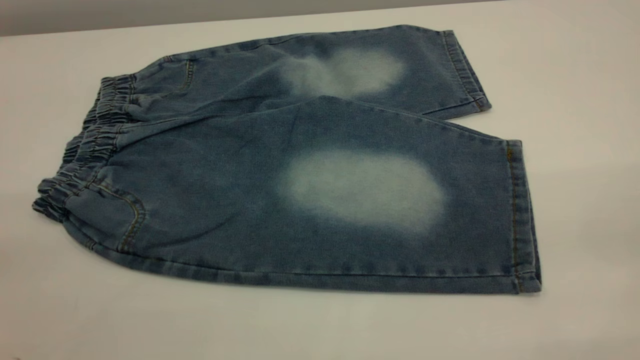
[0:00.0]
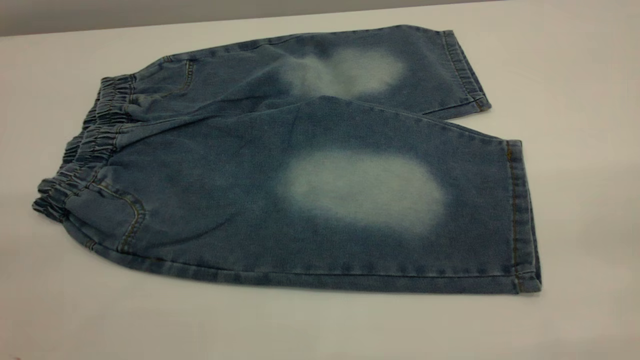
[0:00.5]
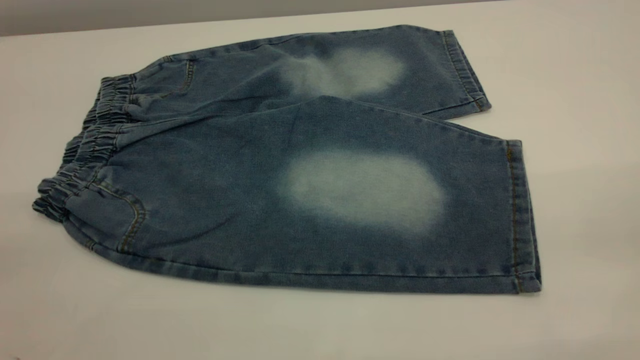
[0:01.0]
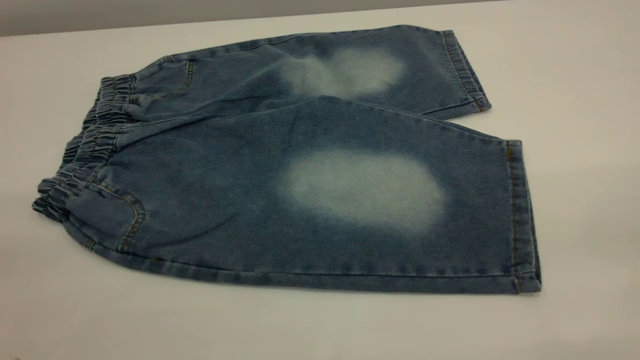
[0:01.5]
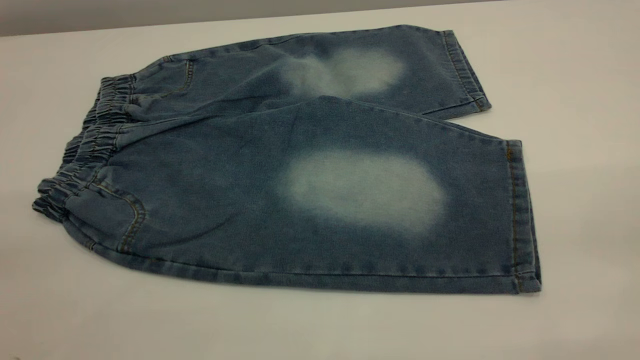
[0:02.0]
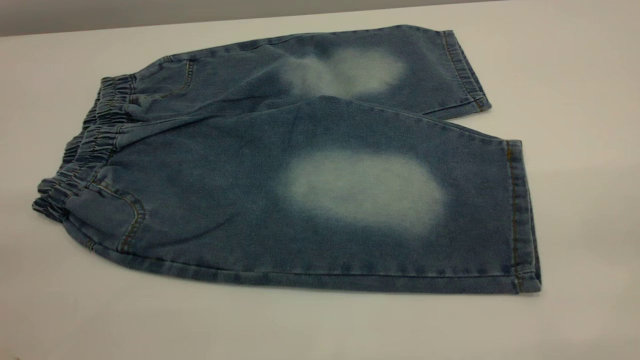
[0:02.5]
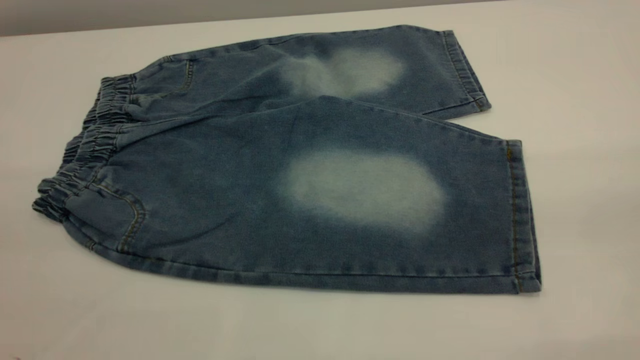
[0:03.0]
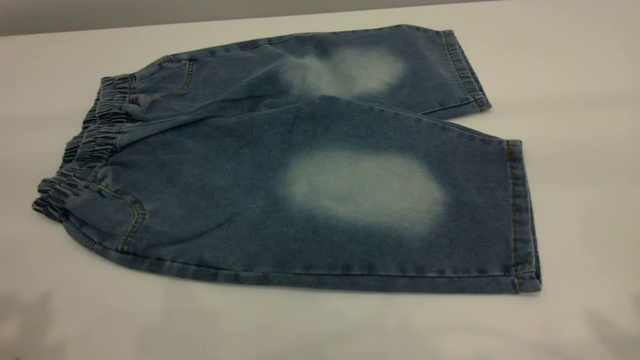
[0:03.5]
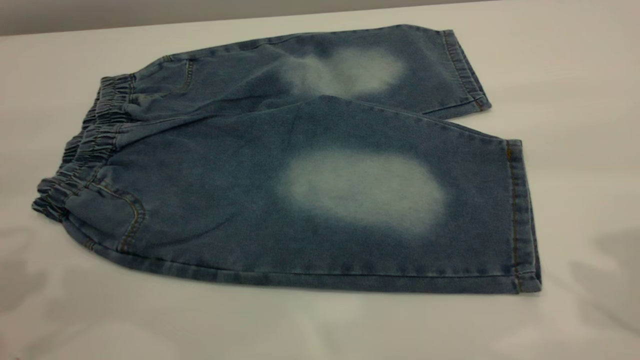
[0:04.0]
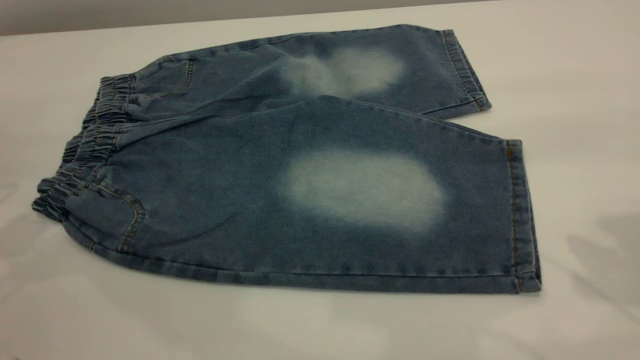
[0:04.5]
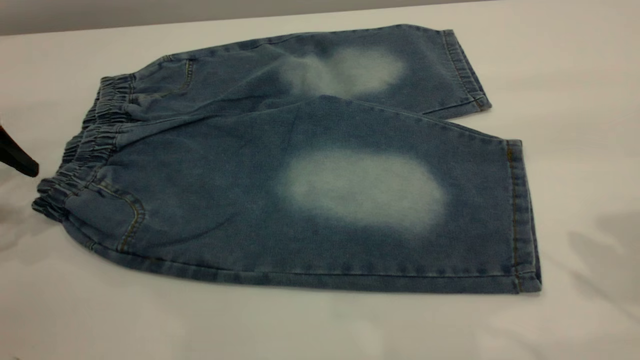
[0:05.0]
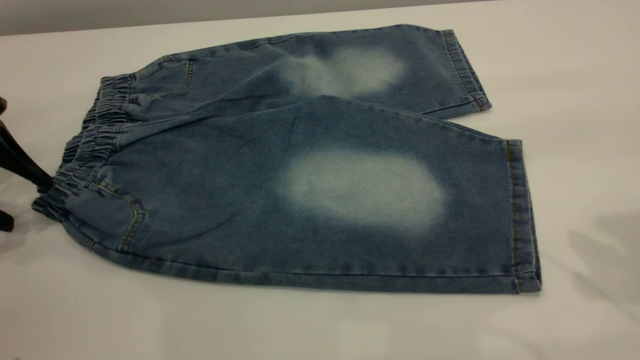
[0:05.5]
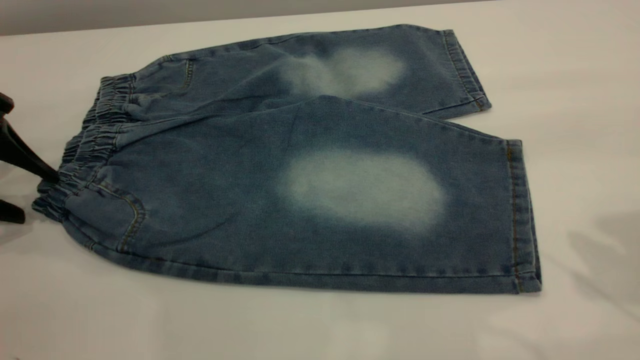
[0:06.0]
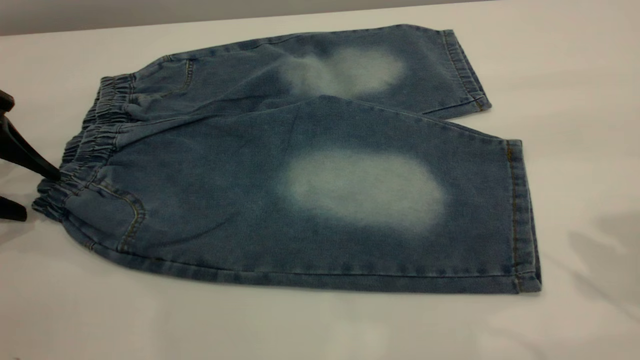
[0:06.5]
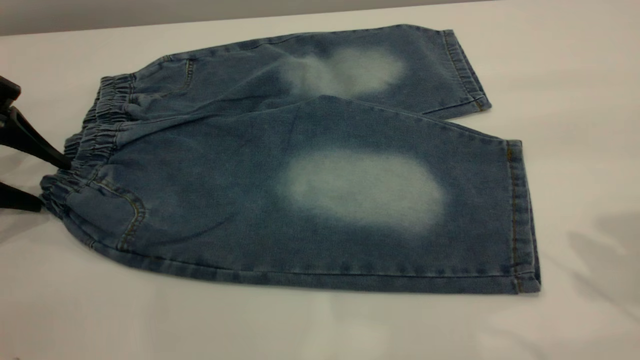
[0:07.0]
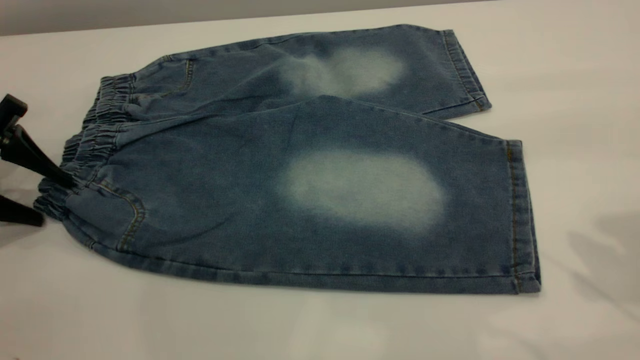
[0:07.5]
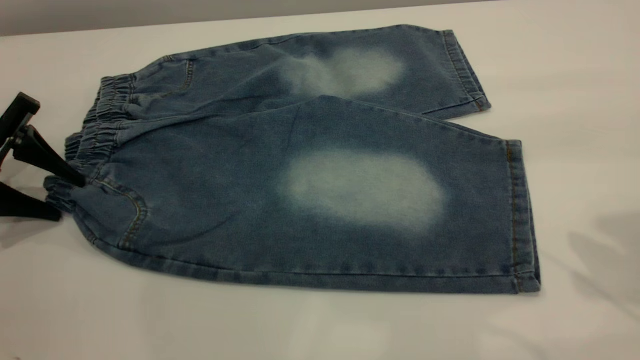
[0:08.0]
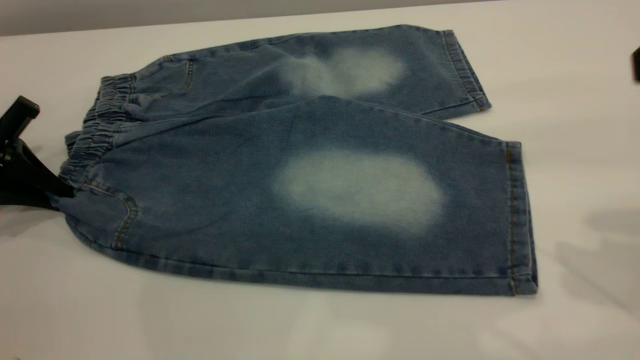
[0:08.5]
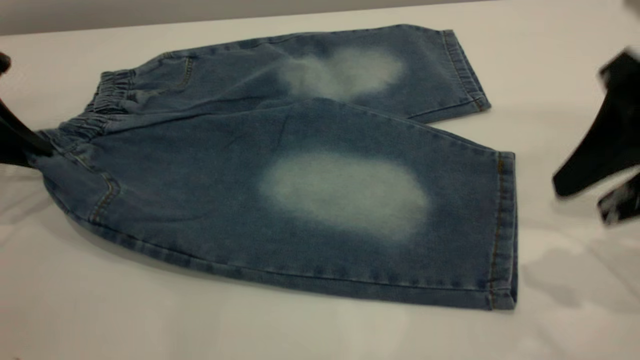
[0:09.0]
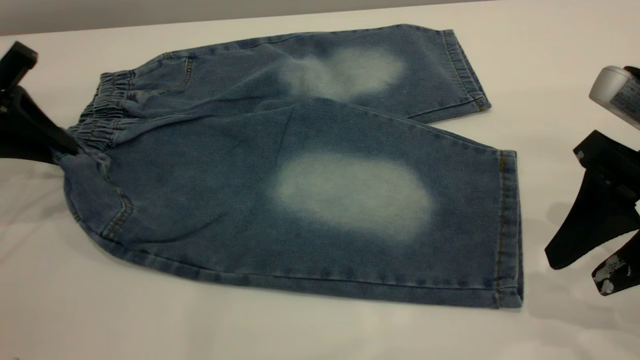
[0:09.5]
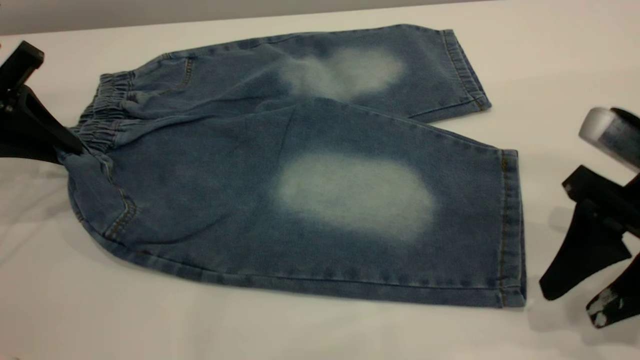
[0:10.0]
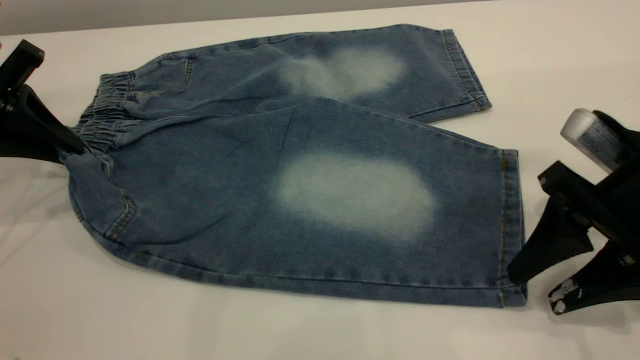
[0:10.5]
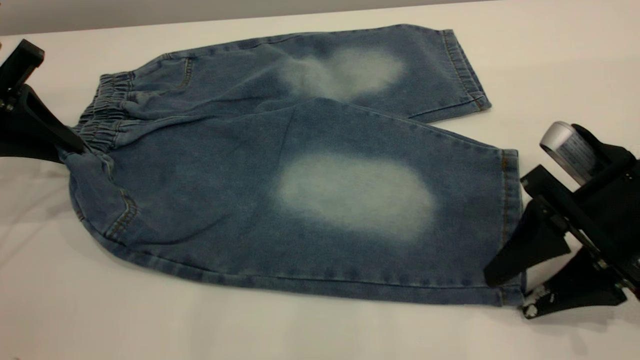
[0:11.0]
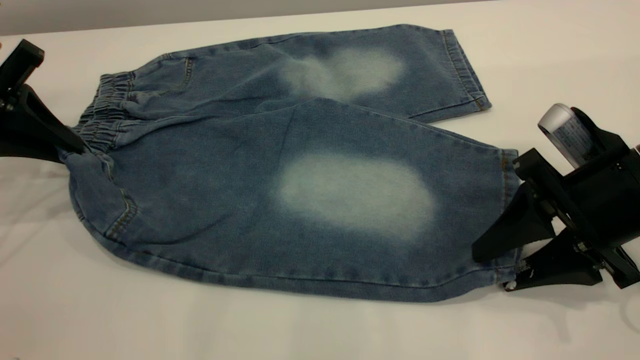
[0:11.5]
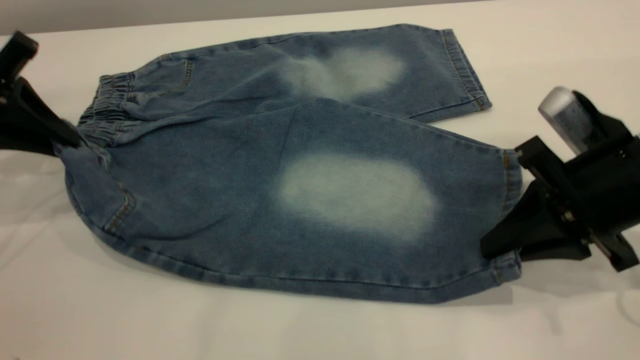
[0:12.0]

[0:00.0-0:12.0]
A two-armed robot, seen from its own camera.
0.0 to 2.0 s: The two grippers keep their place.
4.0 to 6.0 s: The left gripper travels downward and forward by roughly 20 cm.
6.0 to 8.0 s: The grippers move only a little.
8.0 to 10.0 s: The left gripper is displaced upward by approximately 5 cm, and closes up, while the right gripper travels downward by about 15 cm.
10.0 to 12.0 s: The right gripper closes.

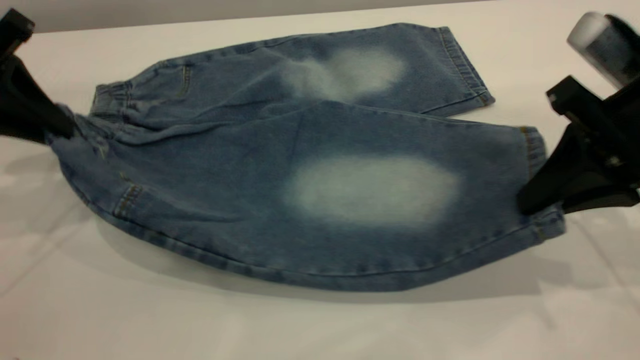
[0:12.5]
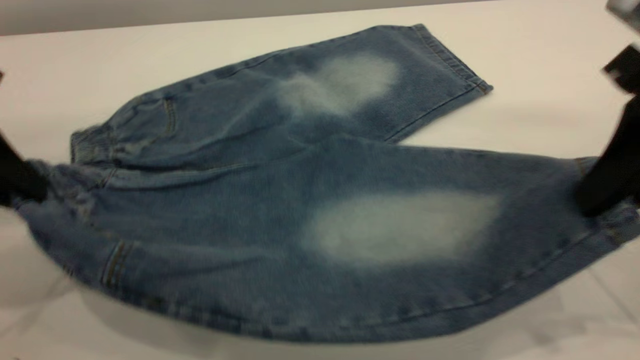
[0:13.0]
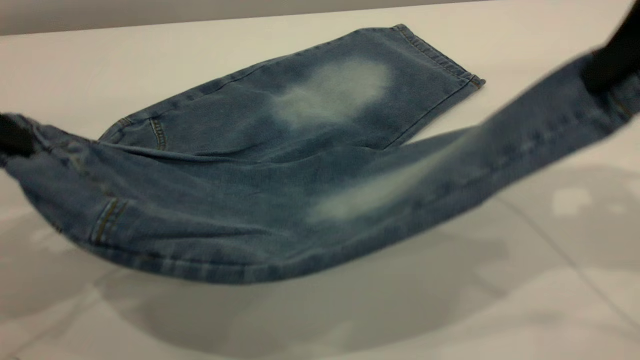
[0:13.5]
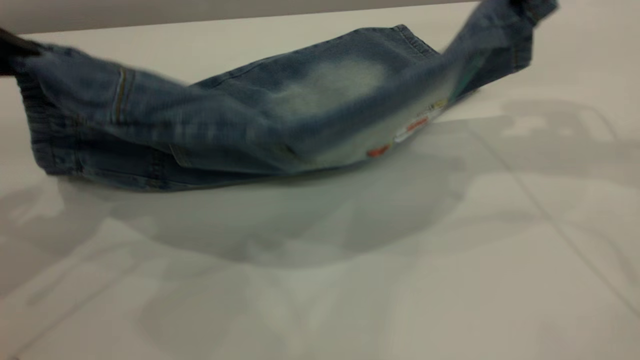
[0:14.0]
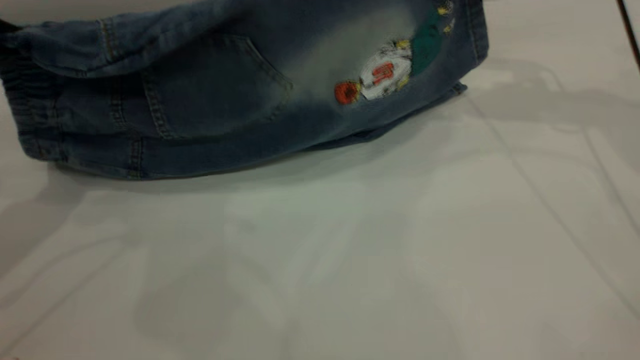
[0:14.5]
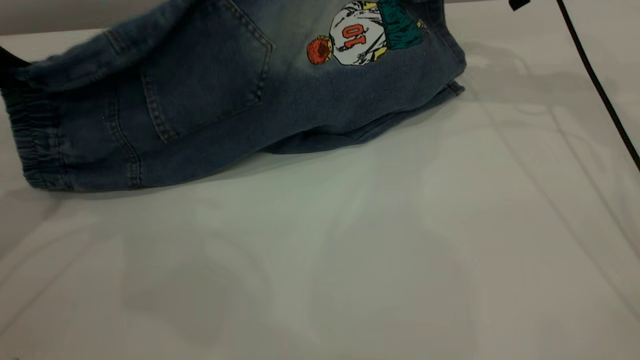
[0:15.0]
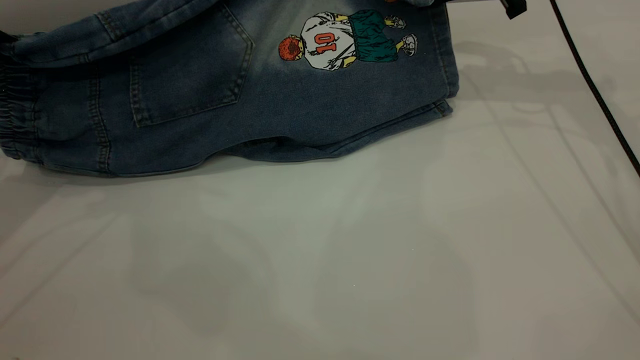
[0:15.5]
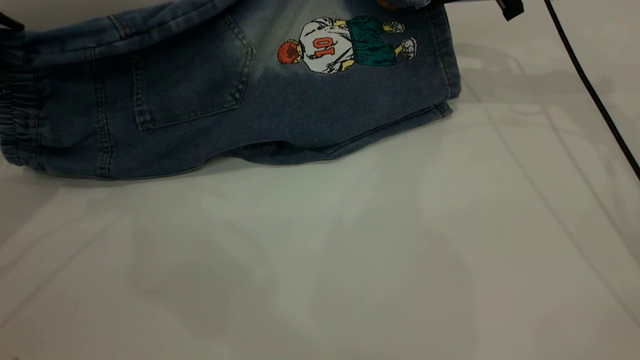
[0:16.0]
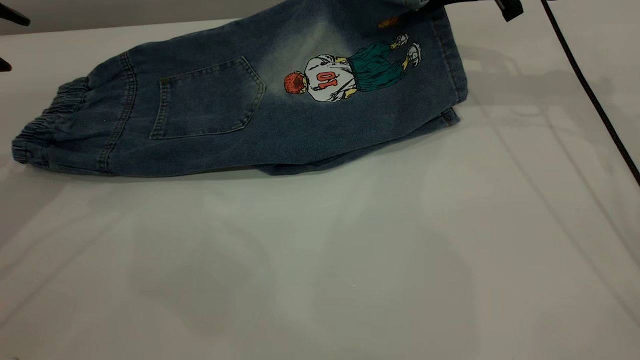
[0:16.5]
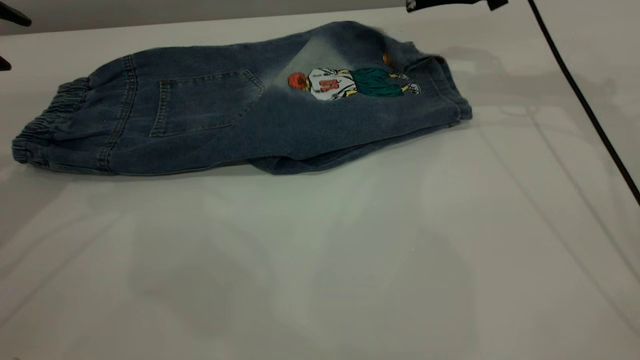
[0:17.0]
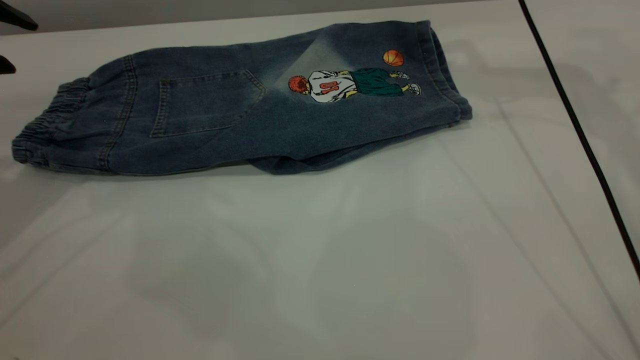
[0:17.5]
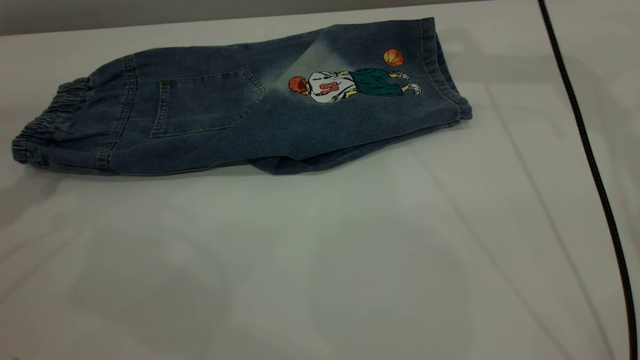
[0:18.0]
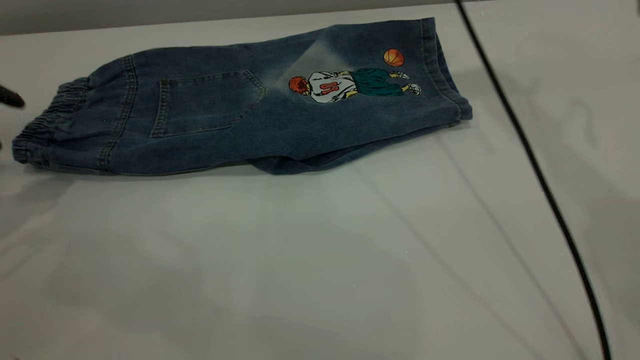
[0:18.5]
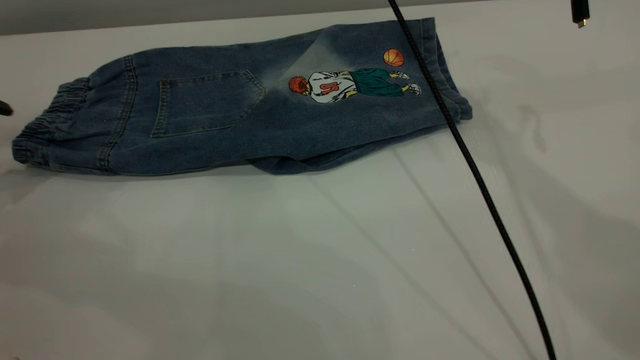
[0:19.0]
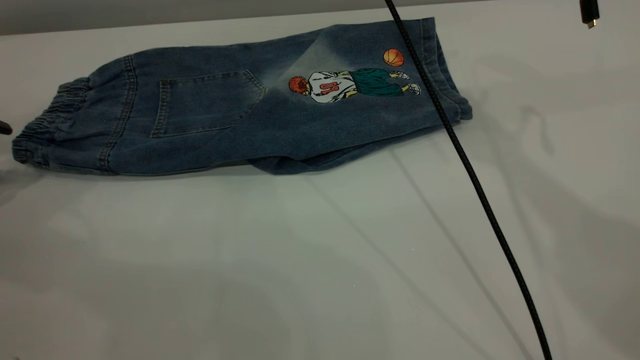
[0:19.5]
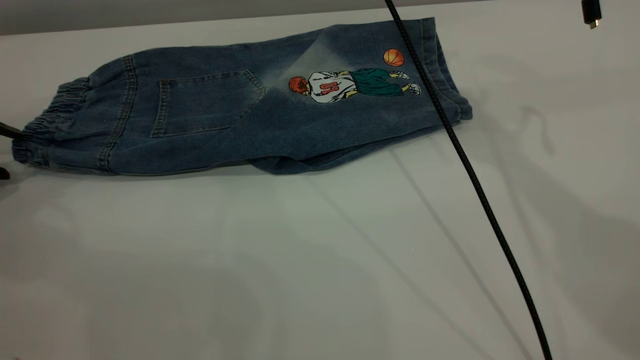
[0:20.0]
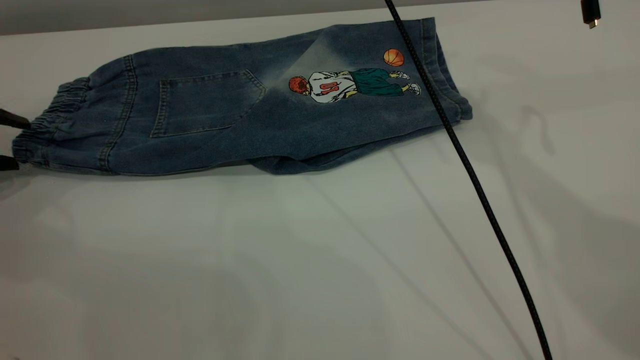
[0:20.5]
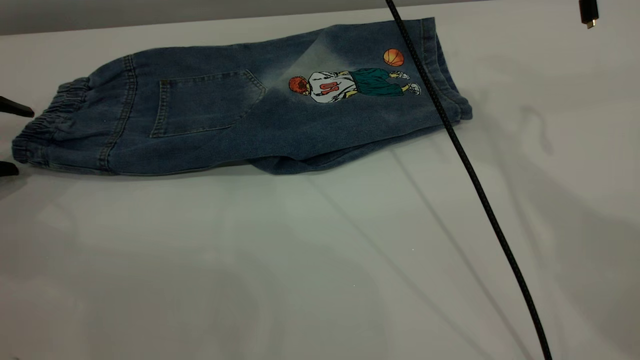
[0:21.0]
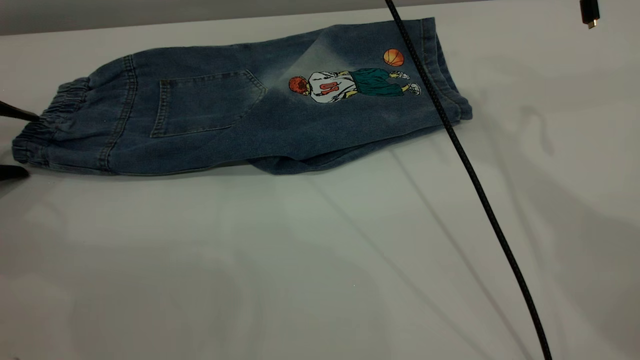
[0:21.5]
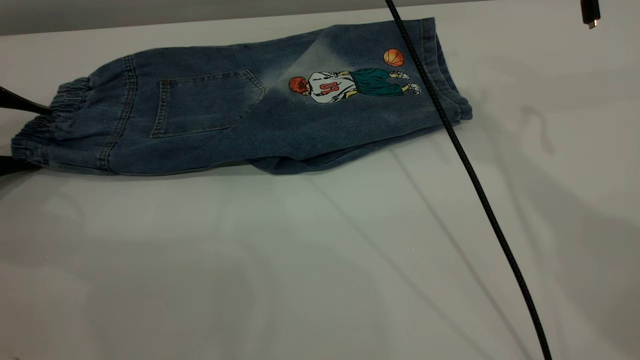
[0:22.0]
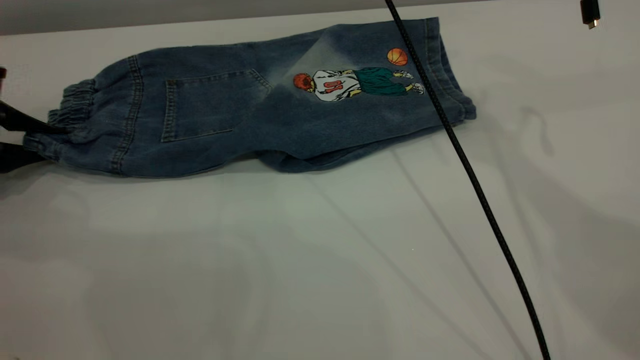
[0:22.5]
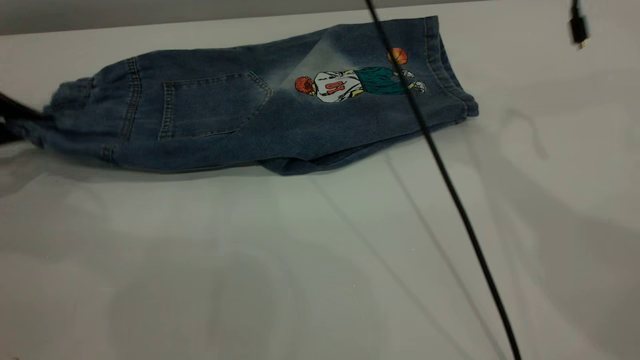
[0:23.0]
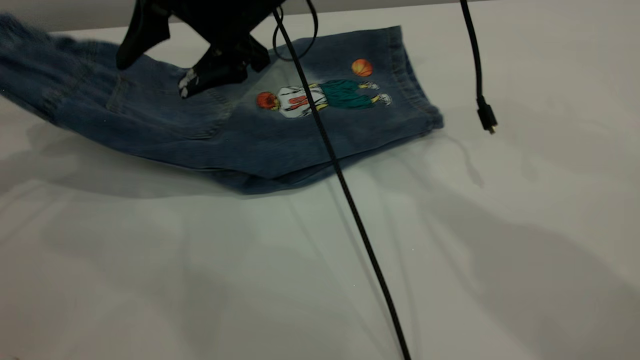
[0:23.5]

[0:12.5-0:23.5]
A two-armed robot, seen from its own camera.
Step, 12.5 to 17.0 s: Fold the bottom of the pants upward.
12.5 to 14.5 s: The right gripper heads forward and upward, covering roughly 20 cm.
14.5 to 16.0 s: The right gripper moves roughly 5 cm. Meanwhile the left gripper opens up.
16.0 to 18.0 s: The right gripper is displaced upward by approximately 10 cm, and opens up.
18.0 to 20.0 s: The right gripper goes about 15 cm to the left and backward.
21.5 to 23.5 s: The right gripper is displaced downward and to the left by some 15 cm. Meanwhile the left gripper goes some 15 cm upward, and closes.
